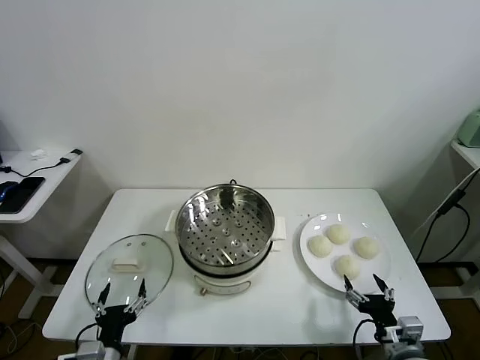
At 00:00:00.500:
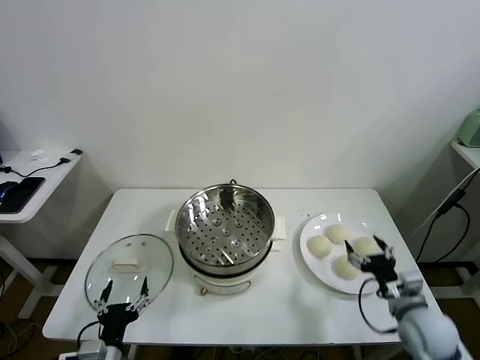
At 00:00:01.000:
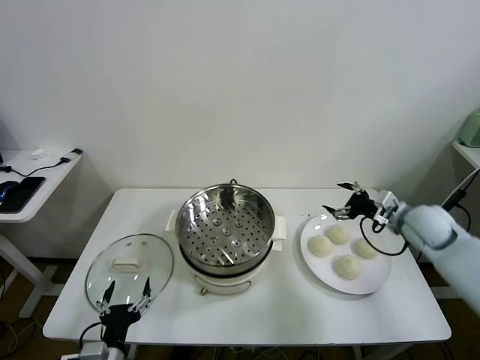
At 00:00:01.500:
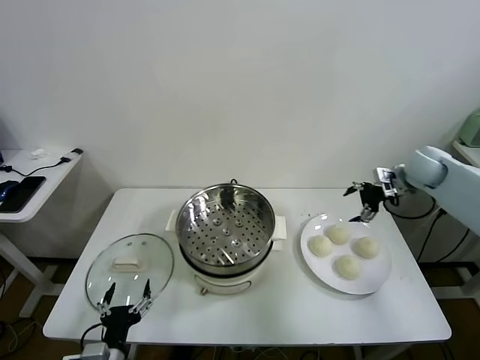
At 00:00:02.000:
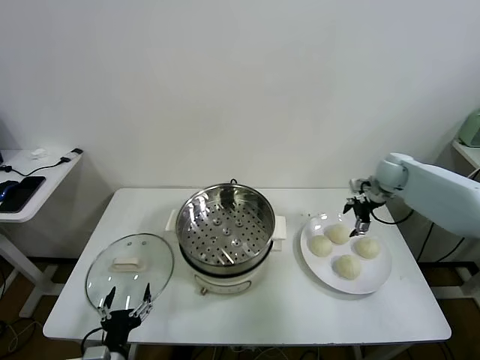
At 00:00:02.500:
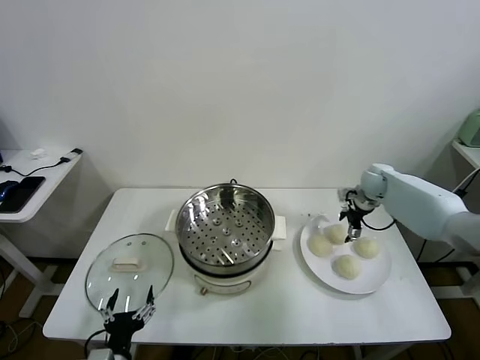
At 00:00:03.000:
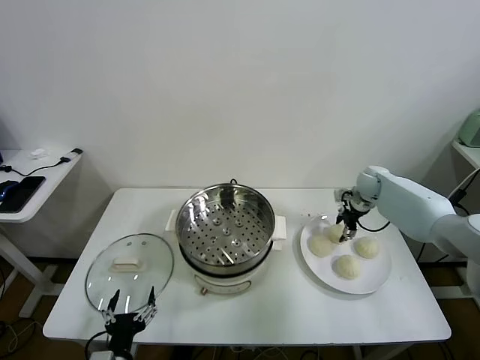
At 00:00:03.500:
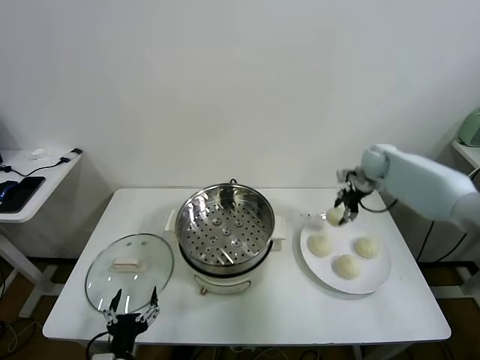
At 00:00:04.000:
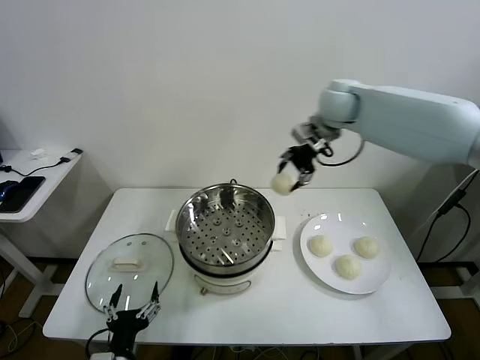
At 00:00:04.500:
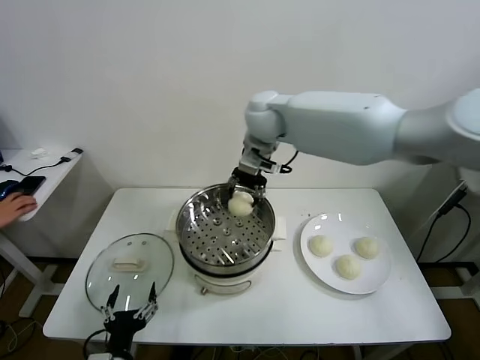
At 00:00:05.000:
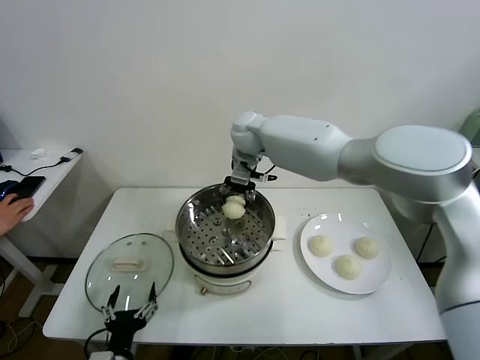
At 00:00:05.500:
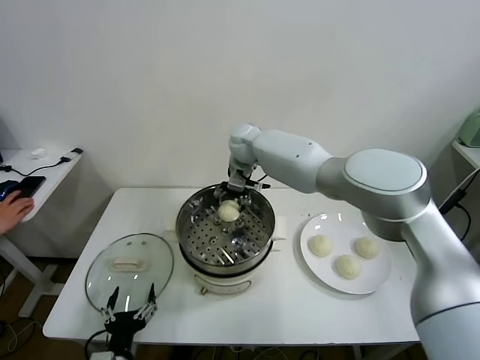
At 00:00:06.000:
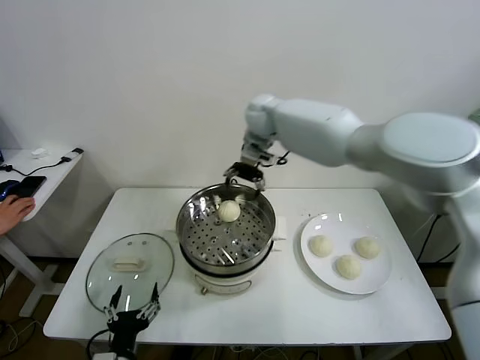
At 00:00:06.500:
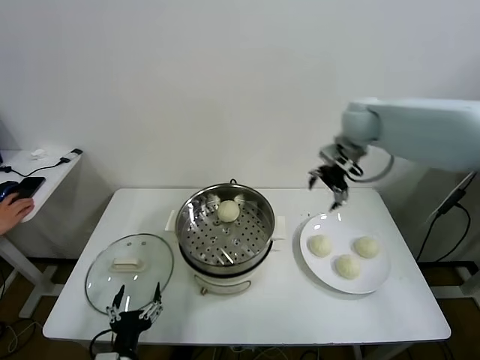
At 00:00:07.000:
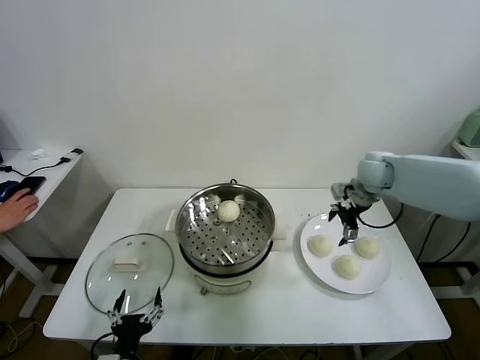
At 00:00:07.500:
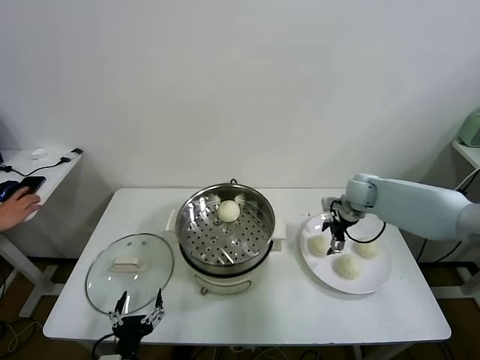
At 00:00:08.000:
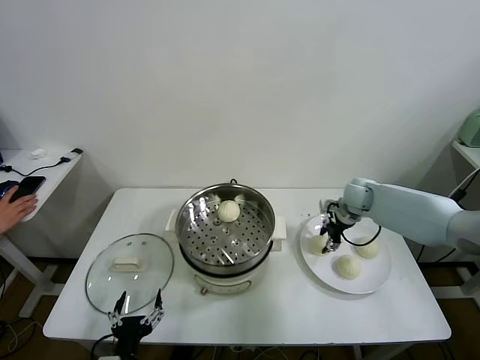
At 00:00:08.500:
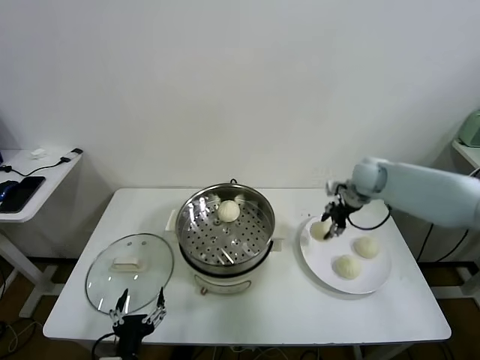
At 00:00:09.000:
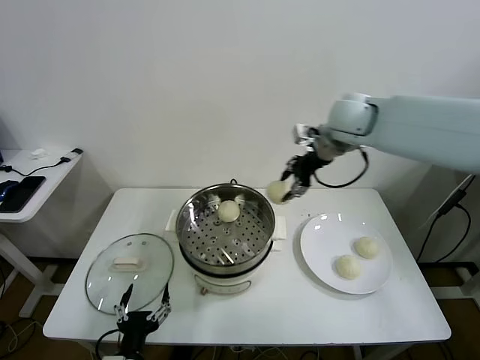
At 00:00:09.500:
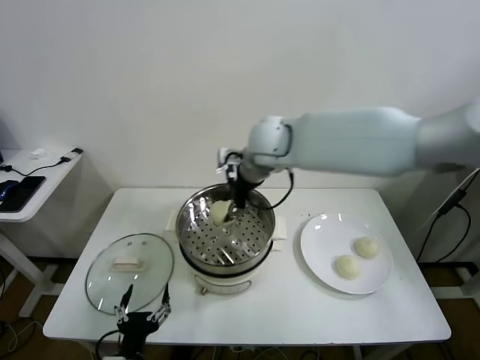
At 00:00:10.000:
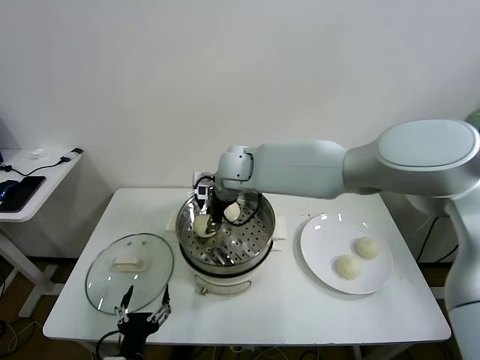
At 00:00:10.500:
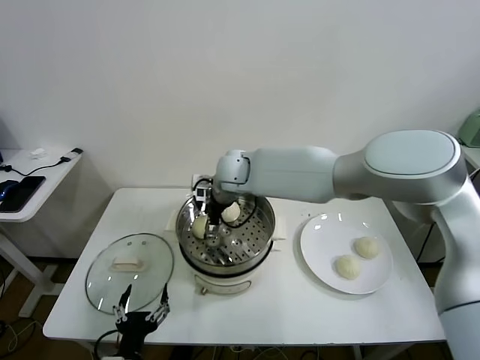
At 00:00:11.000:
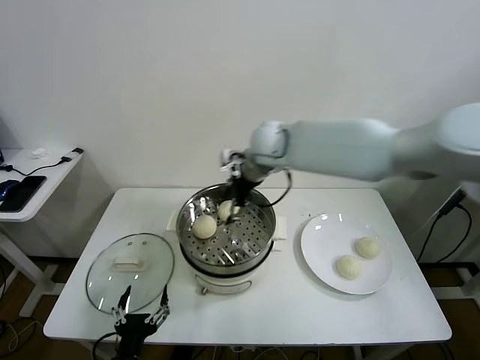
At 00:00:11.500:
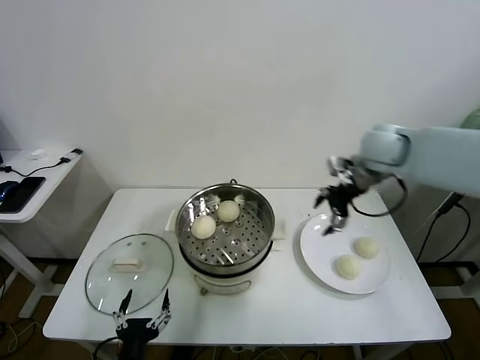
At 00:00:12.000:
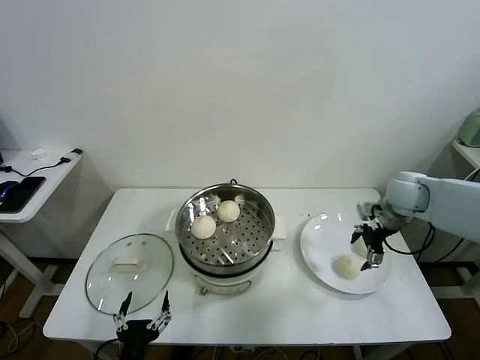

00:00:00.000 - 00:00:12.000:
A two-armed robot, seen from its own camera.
Task of the whole recording: take steamed baozi put them in steamer.
Step, 00:00:00.000 - 00:00:02.500: Grasp the baozi in the plate with right gripper.
Step, 00:00:03.000 - 00:00:05.500: Place the baozi on the steamer with right gripper.
Step, 00:00:06.000 - 00:00:07.500: Grasp the baozi in the plate with right gripper.
Step, 00:00:08.000 - 00:00:10.500: Place the baozi on the steamer with right gripper.
00:00:02.000 - 00:00:04.000: The right gripper goes some 30 cm to the left and upward, and closes up.
00:00:04.000 - 00:00:06.000: The right gripper shifts some 10 cm to the left and forward, and opens up.
00:00:06.000 - 00:00:08.000: The right gripper heads to the right and downward, covering approximately 35 cm, and closes its fingers.
00:00:08.000 - 00:00:10.000: The right gripper moves to the left, some 35 cm.
00:00:10.000 - 00:00:12.000: The right gripper is displaced to the right by about 40 cm, and opens its fingers.

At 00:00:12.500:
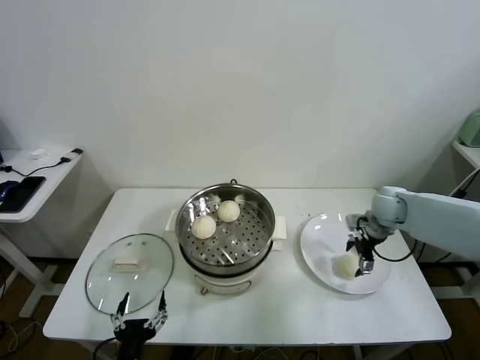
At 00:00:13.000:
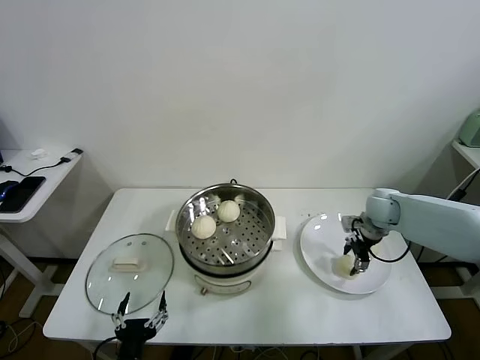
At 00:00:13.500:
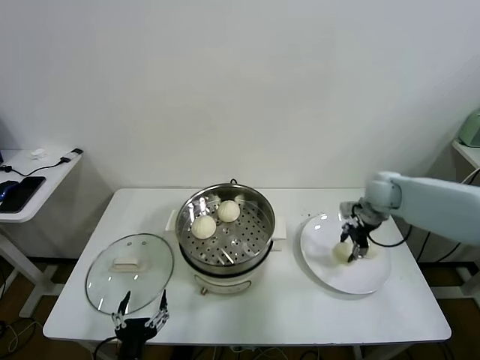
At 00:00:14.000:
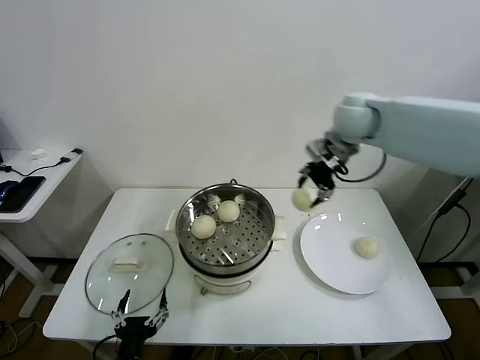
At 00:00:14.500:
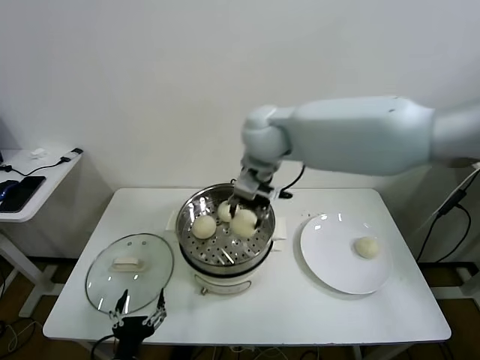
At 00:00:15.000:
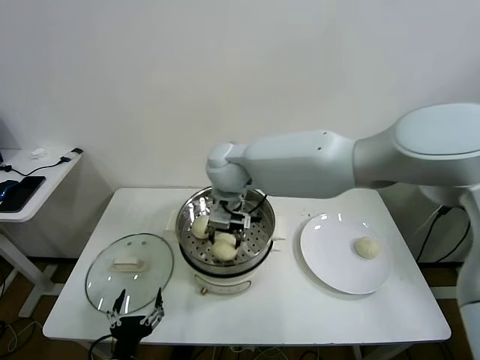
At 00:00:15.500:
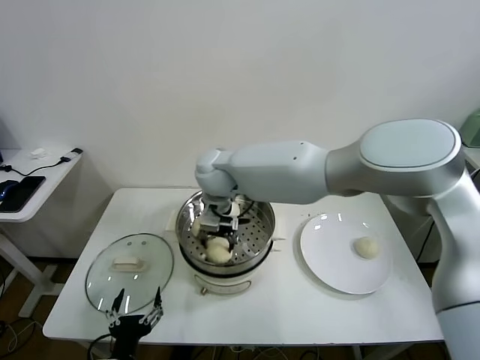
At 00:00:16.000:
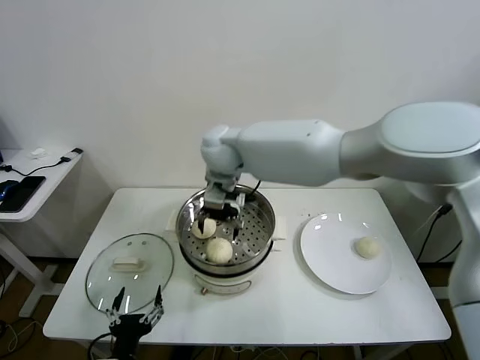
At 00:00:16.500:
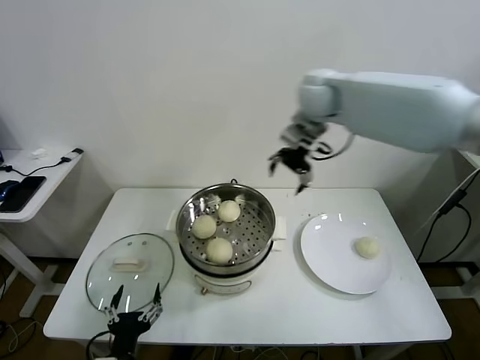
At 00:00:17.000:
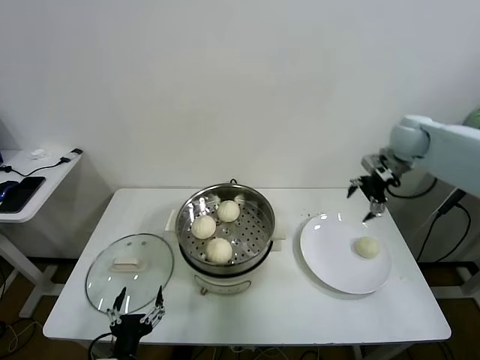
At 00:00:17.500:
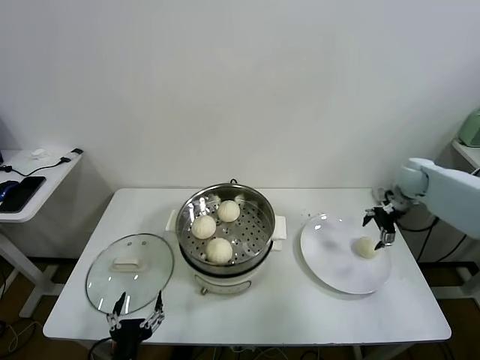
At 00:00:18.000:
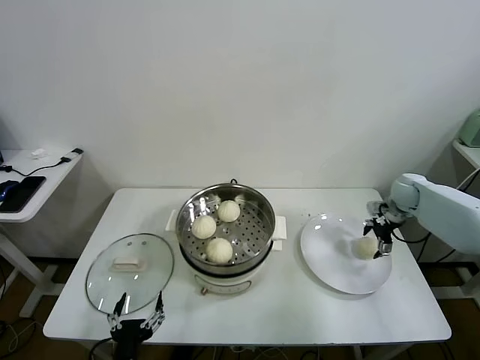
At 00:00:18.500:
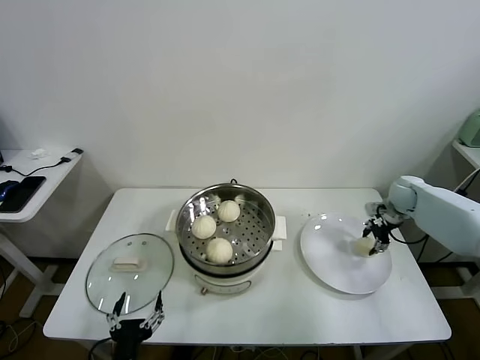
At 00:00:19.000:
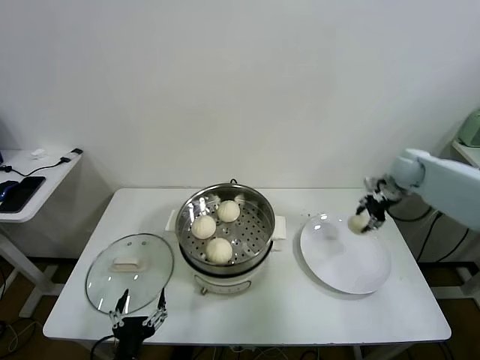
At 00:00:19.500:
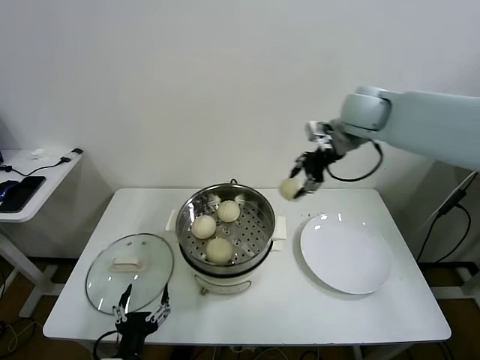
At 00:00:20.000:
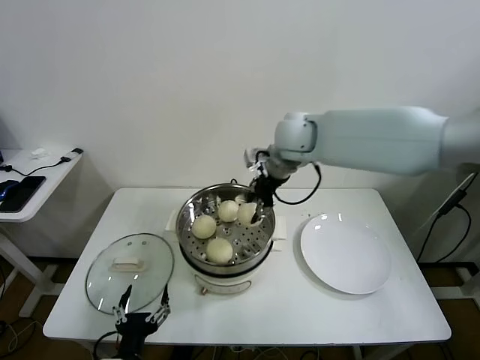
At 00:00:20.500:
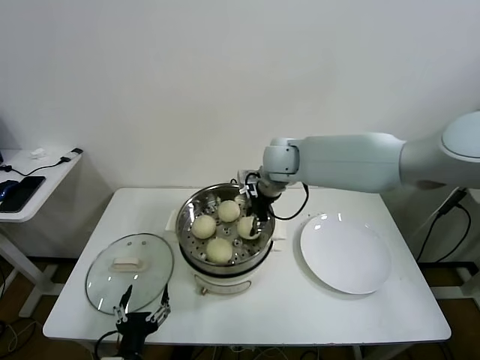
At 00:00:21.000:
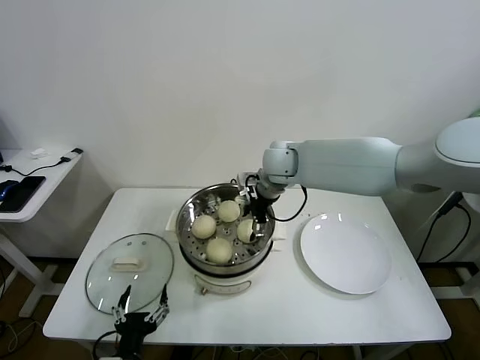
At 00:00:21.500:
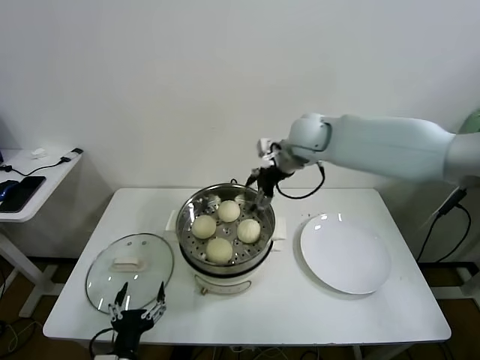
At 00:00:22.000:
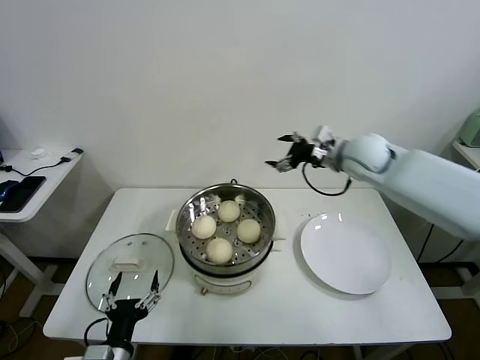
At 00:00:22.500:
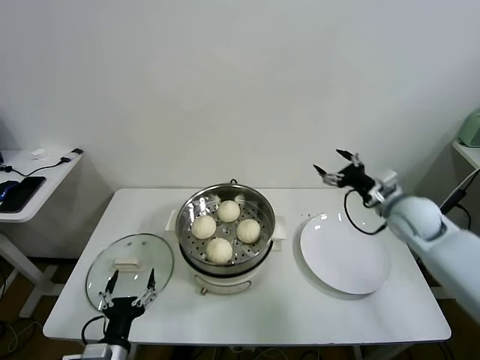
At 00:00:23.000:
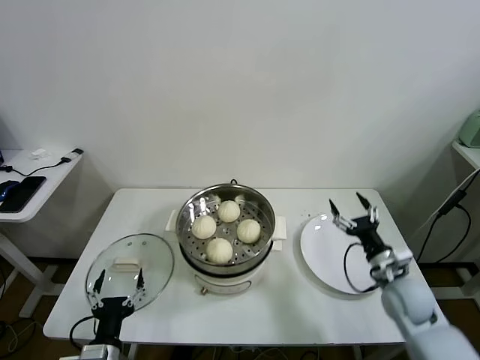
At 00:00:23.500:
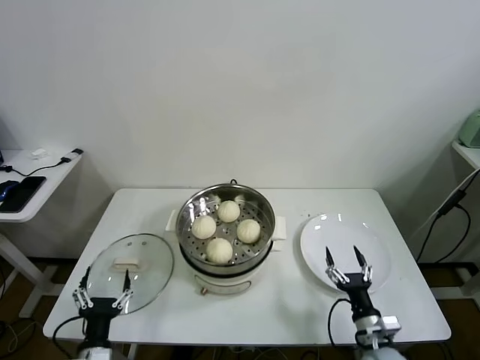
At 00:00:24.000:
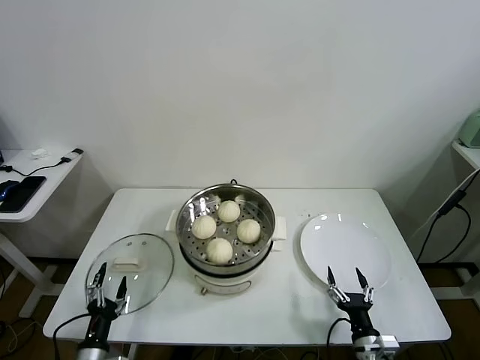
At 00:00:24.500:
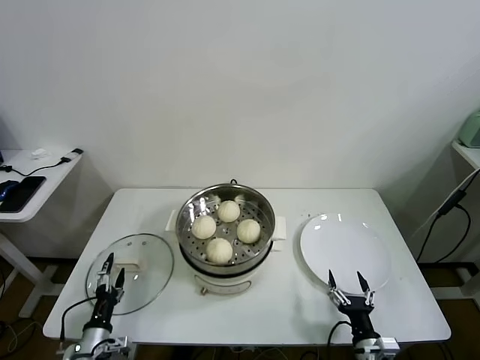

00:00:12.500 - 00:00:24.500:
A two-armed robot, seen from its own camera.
Task of the whole recording: take steamed baozi put them in steamer.
Step, 00:00:13.500 - 00:00:15.500: Place the baozi on the steamer with right gripper.
Step, 00:00:16.000 - 00:00:18.000: Grasp the baozi in the plate with right gripper.
Step, 00:00:18.500 - 00:00:20.500: Place the baozi on the steamer with right gripper.
00:00:12.500 - 00:00:14.500: The right gripper moves to the left and upward, approximately 40 cm, and closes.
00:00:14.500 - 00:00:16.500: The right gripper moves to the right and forward, approximately 15 cm, and opens.
00:00:16.500 - 00:00:18.500: The right gripper is displaced downward and to the right by approximately 40 cm, and closes its fingers.
00:00:18.500 - 00:00:20.500: The right gripper is displaced to the left by approximately 35 cm.
00:00:20.500 - 00:00:22.500: The right gripper heads to the right, covering about 30 cm, and opens its fingers.
00:00:22.500 - 00:00:24.500: The right gripper heads backward and downward, covering about 35 cm, while the left gripper heads downward, to the left and forward, covering about 15 cm.

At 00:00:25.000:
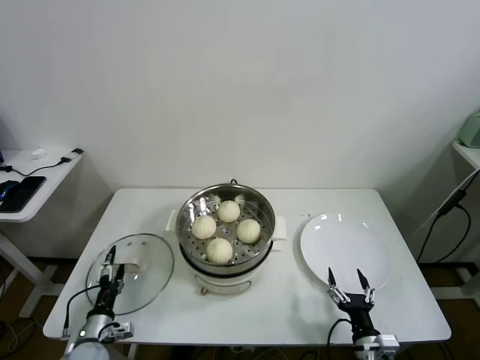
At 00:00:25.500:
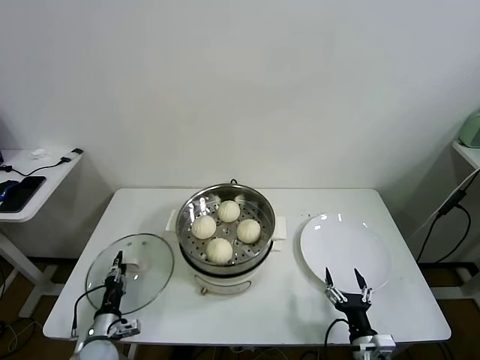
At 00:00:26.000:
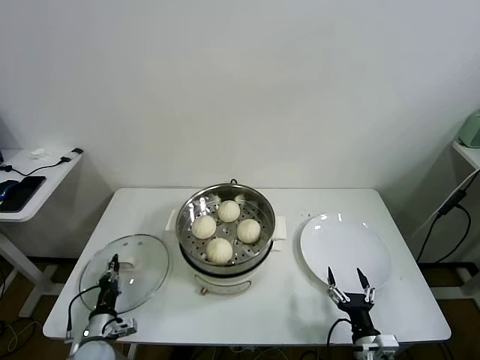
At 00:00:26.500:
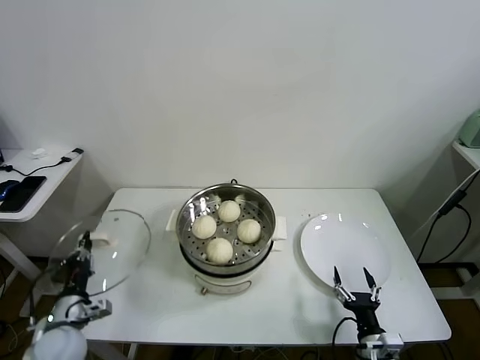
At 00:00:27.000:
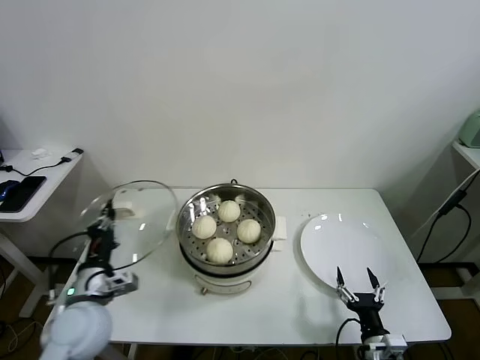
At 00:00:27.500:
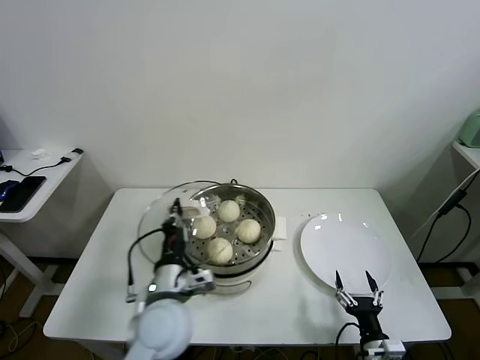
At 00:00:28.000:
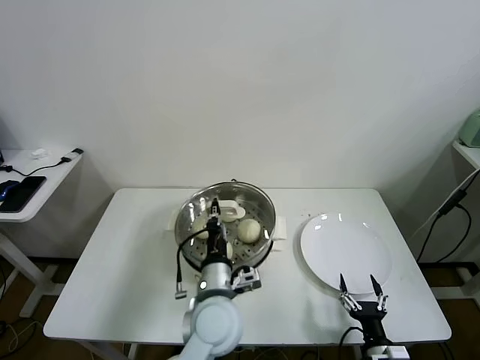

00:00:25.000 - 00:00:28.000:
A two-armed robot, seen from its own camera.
Task of the whole recording: take steamed baozi put them in steamer.
00:00:25.000 - 00:00:26.500: The left gripper heads upward, covering about 10 cm, and closes.
00:00:26.500 - 00:00:28.000: The left gripper shifts roughly 30 cm to the right.
